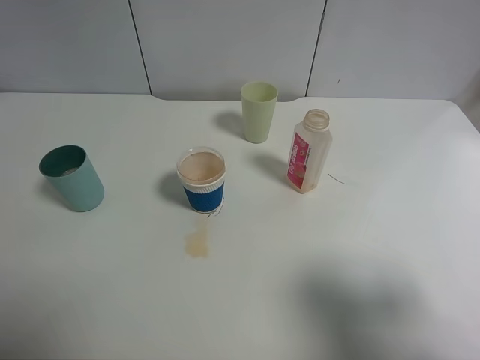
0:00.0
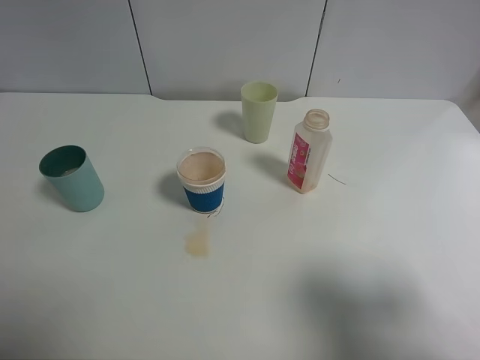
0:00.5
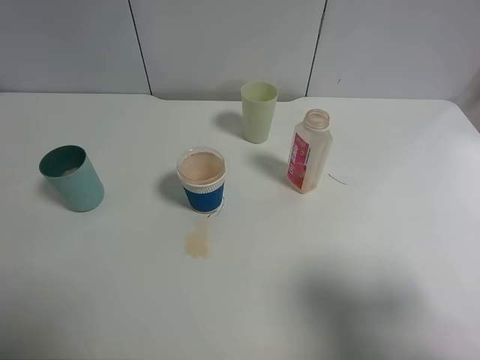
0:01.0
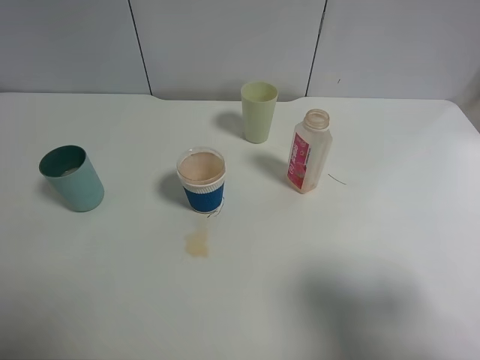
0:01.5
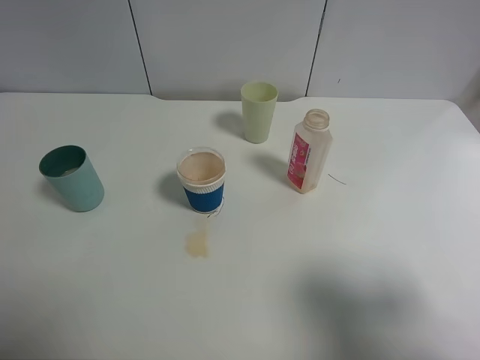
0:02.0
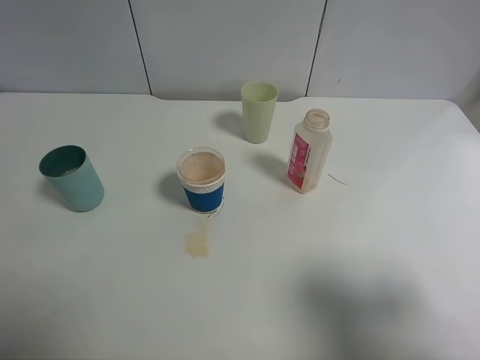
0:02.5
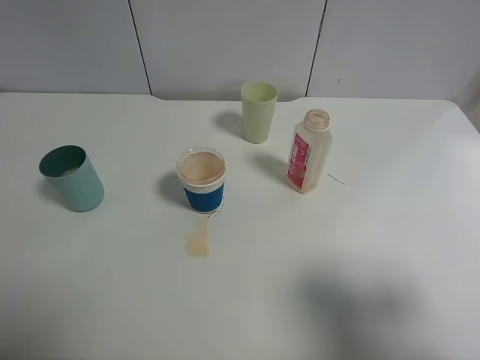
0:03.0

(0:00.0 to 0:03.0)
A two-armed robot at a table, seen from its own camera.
Task of the whole recording: use a clamp to hold the bottle of the drink, pour the beverage into a random cup, then clamp the cup containing the drink and pour the drink into another random cup.
0:01.5 - 0:03.0: Both grippers stay put.
